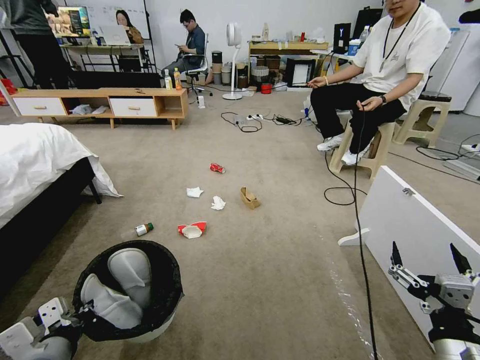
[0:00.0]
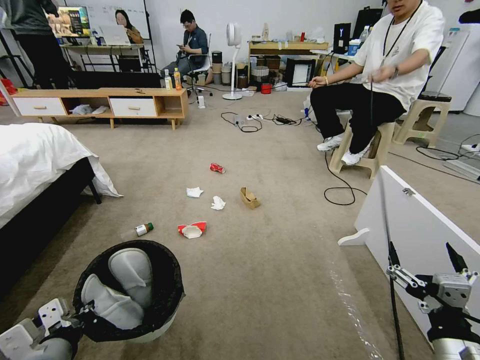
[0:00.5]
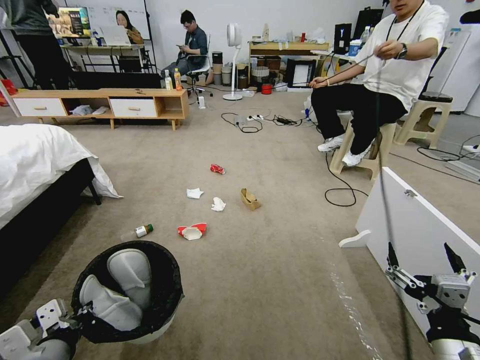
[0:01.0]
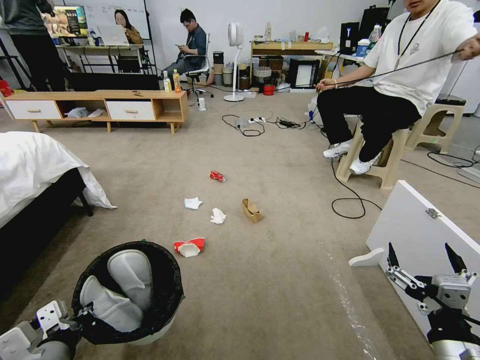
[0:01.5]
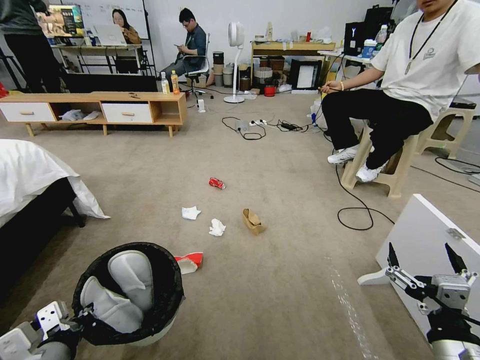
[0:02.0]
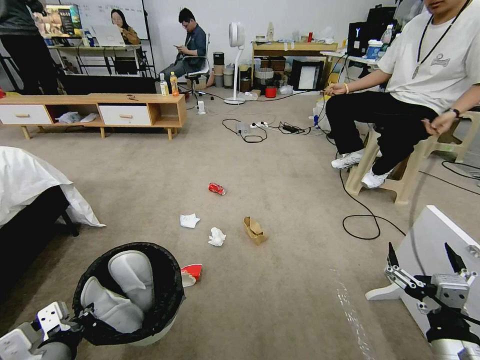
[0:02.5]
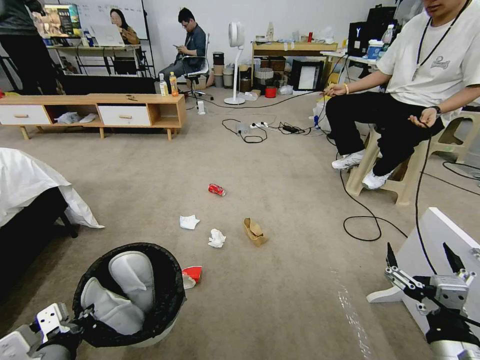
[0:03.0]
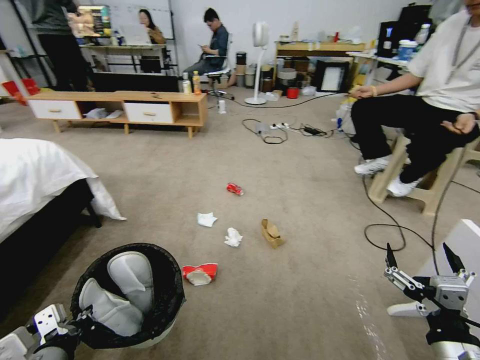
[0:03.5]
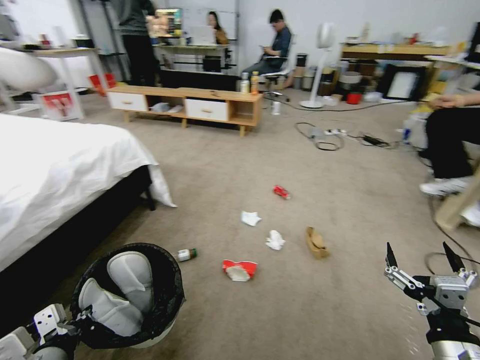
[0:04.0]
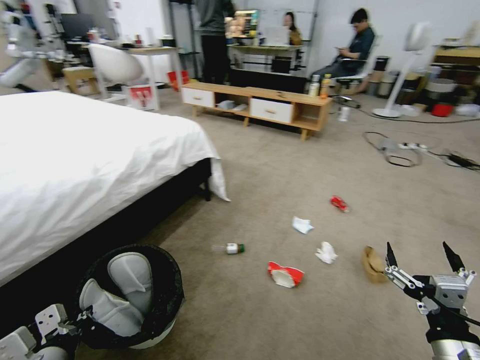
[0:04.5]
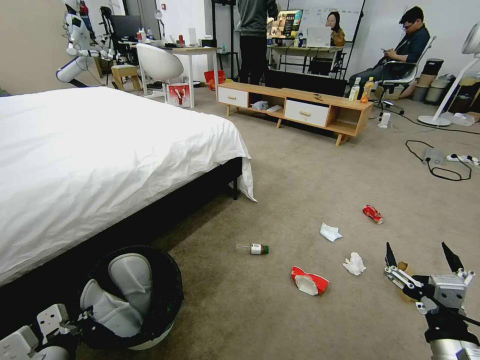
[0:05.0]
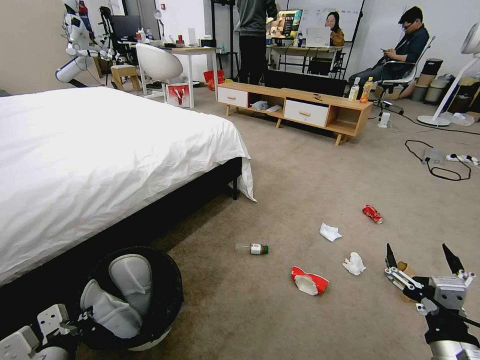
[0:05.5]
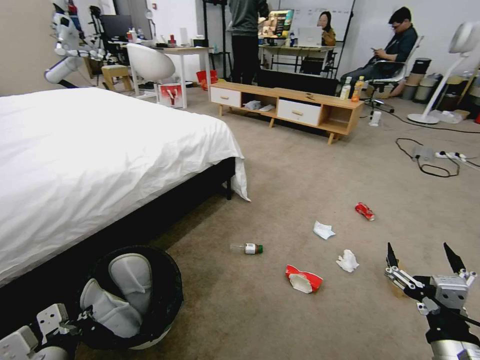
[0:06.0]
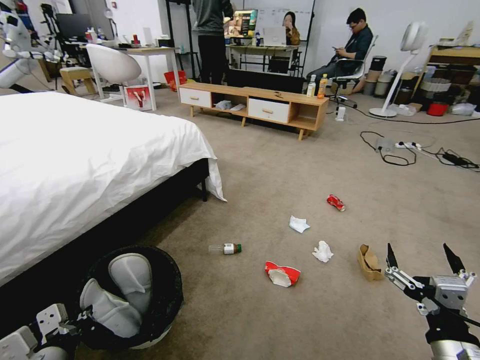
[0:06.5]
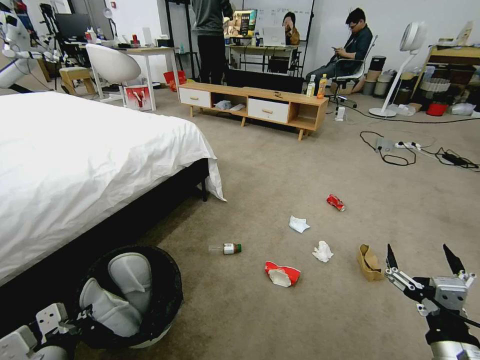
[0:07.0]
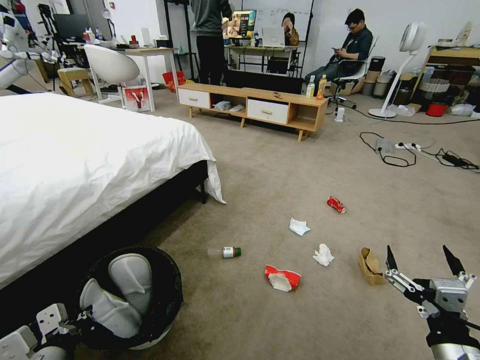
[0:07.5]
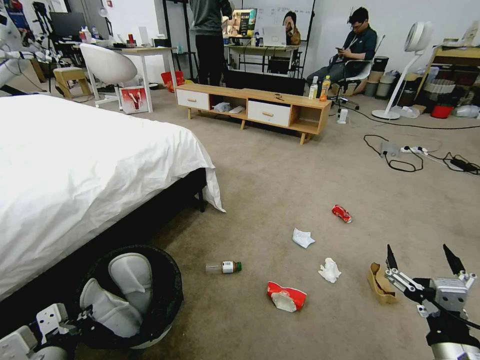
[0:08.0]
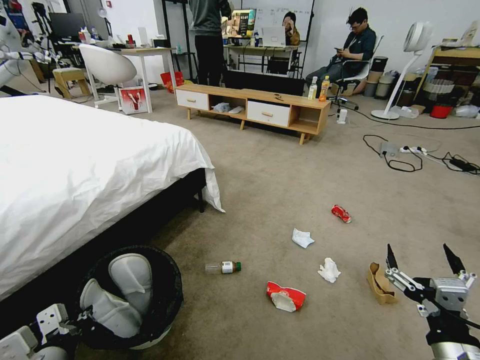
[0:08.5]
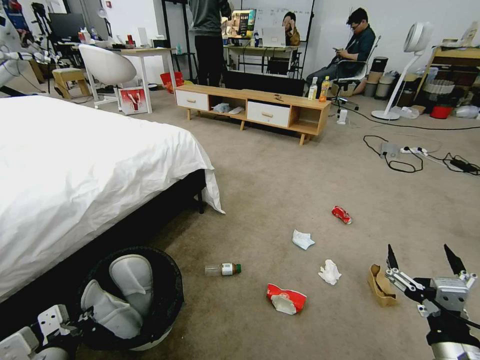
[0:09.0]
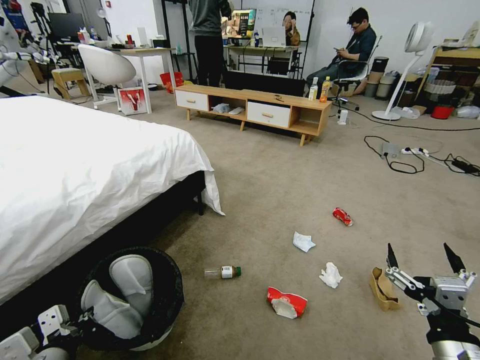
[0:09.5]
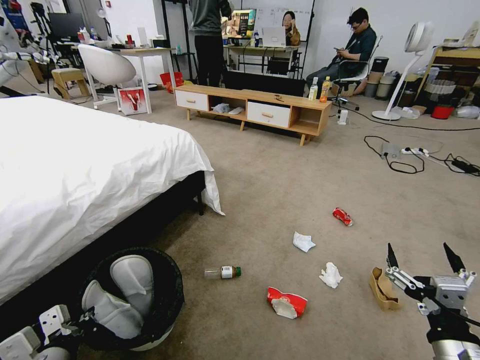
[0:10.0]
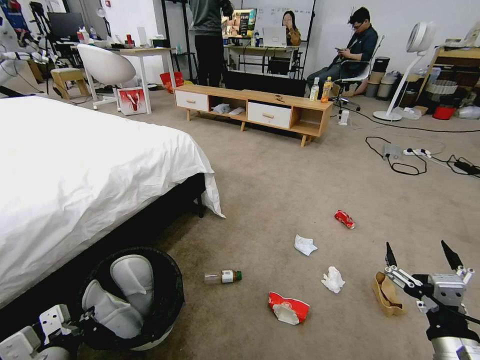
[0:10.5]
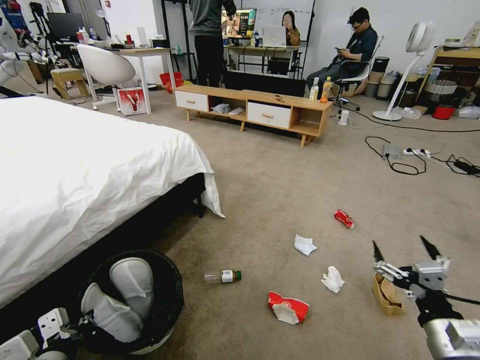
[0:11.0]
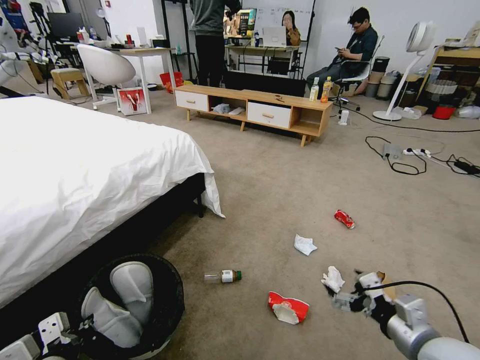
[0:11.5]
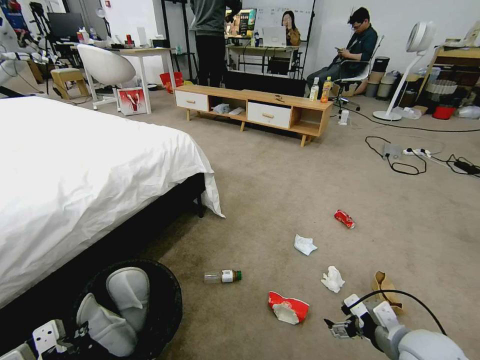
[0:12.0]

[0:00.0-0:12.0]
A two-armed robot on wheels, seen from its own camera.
Task of the whole recording: Pick up the trash bin and place the garbage on the floor into it.
0:08.0 to 0:10.0: Neither gripper changes place.
0:10.0 to 0:12.0: The right gripper moves forward, approximately 10 cm.

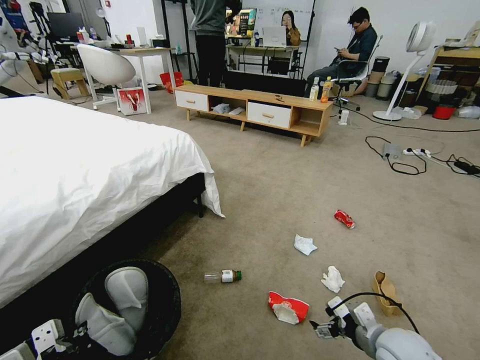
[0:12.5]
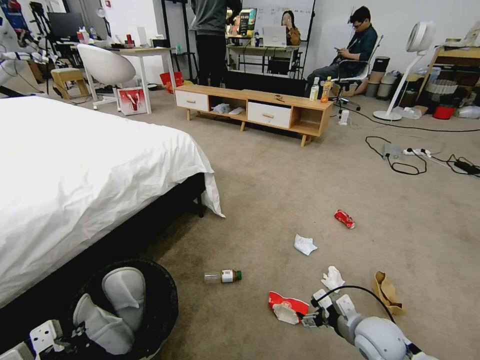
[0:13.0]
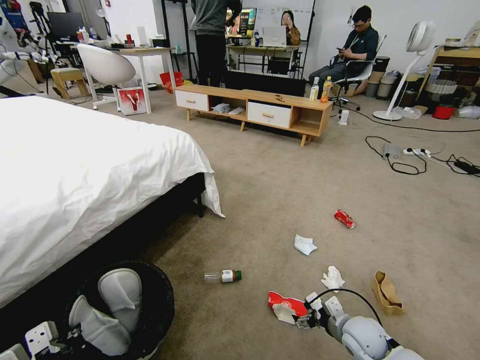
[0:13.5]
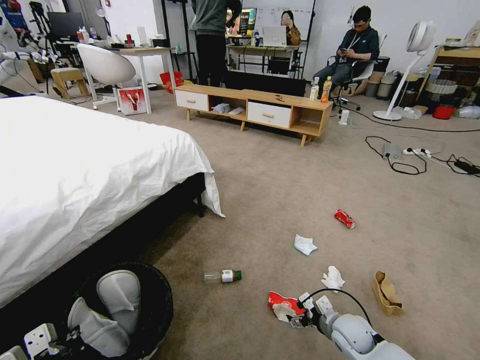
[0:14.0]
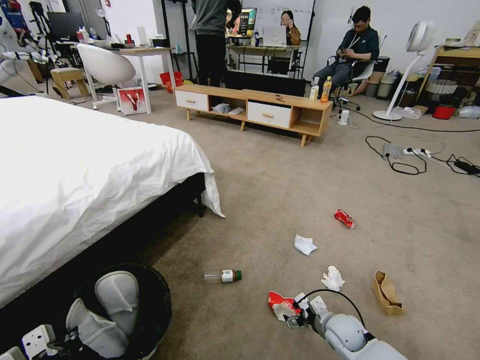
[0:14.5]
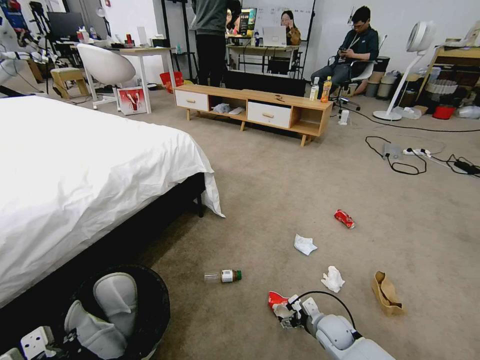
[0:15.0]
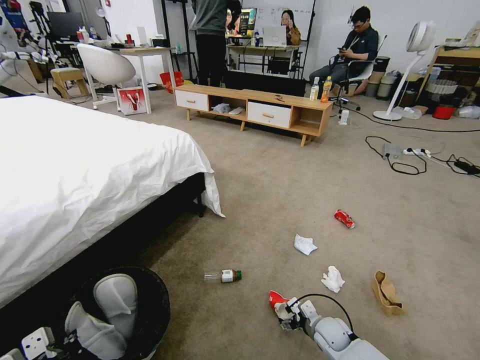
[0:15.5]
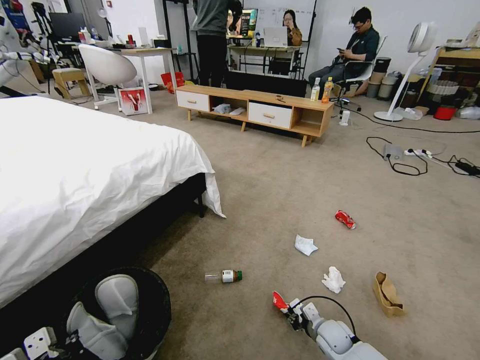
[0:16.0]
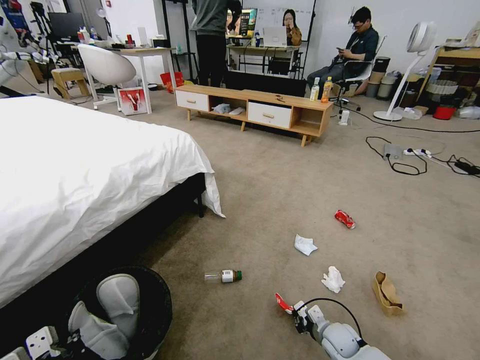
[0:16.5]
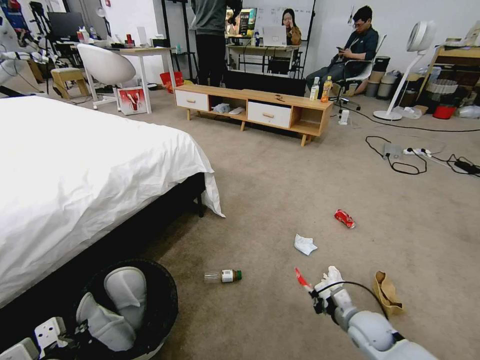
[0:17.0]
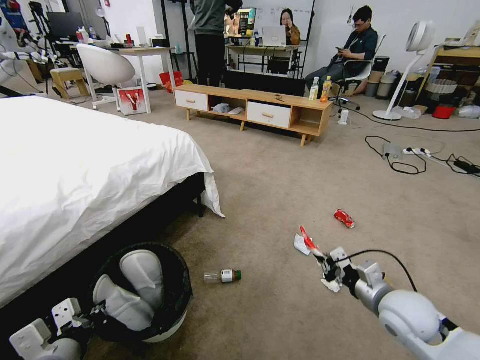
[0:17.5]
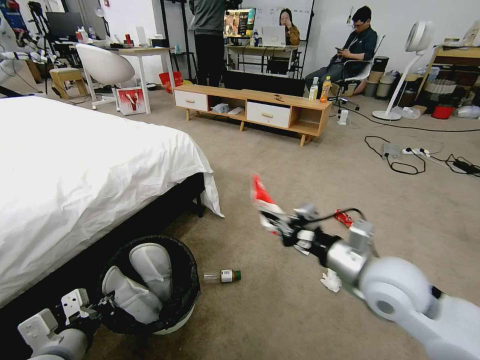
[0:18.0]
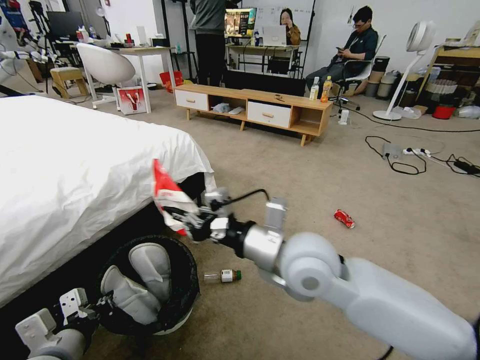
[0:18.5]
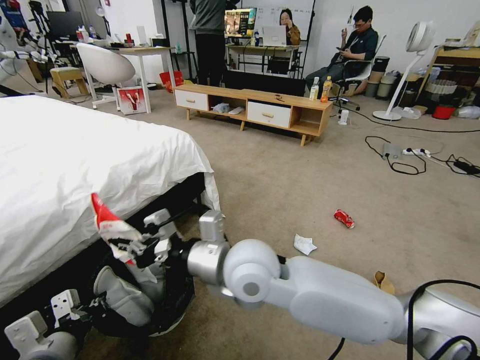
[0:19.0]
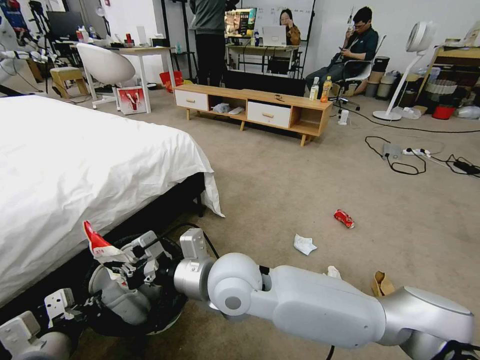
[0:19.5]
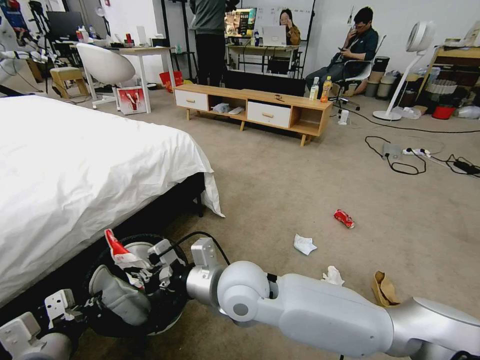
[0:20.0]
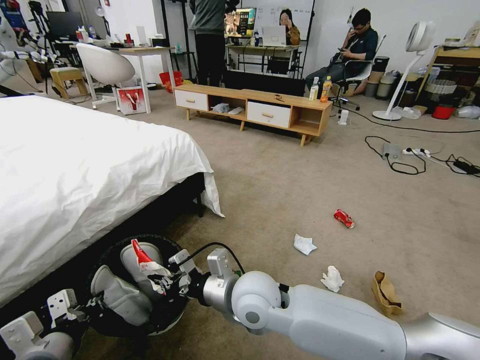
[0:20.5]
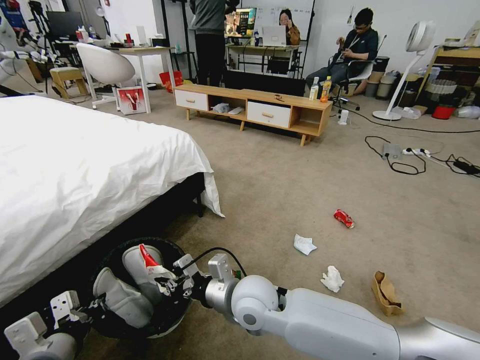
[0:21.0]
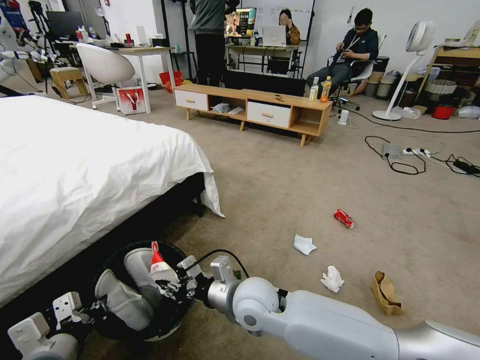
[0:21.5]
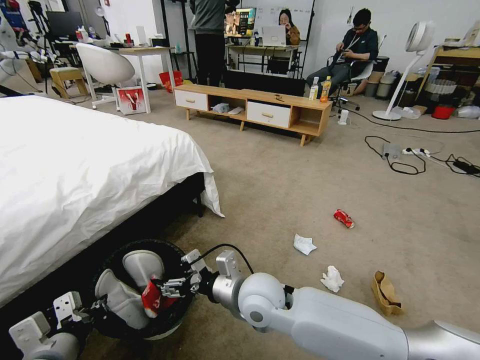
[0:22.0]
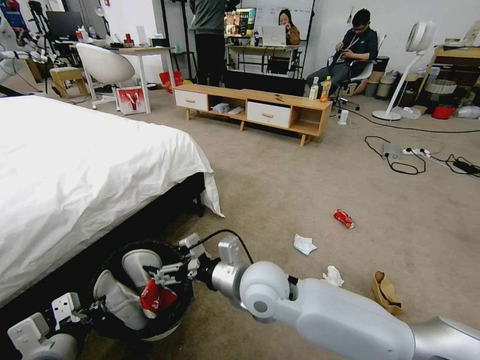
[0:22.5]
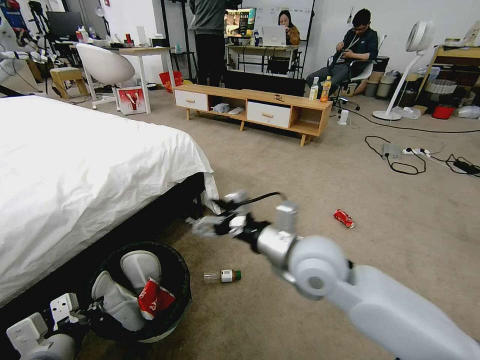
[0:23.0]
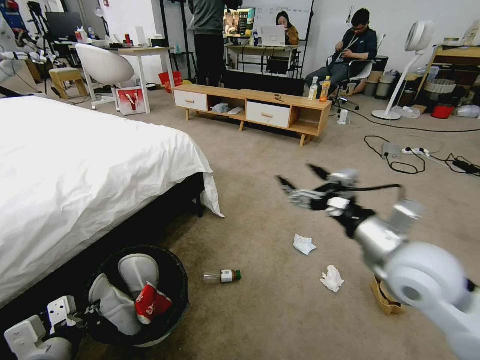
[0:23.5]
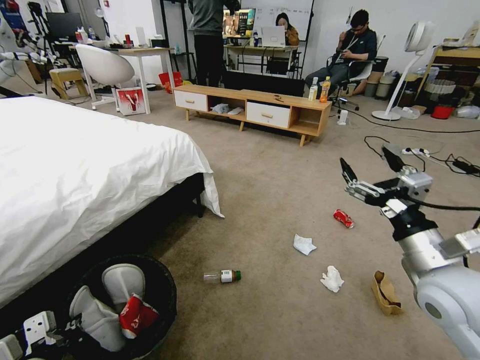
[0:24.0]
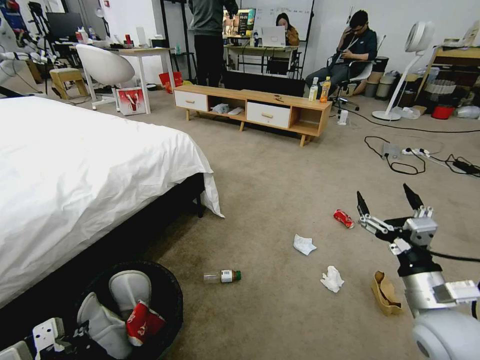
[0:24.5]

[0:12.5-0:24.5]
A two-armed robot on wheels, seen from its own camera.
Task of the whole recording: Pick up the trash bin and place the garbage on the floor into it.
0:12.5 to 0:14.5: The right gripper travels downward, forward and to the left by roughly 15 cm.
0:14.5 to 0:16.5: The right gripper closes.
0:16.5 to 0:18.5: The left gripper shifts by some 5 cm; the right gripper heads upward and to the left, covering approximately 40 cm.
0:18.5 to 0:20.5: The right gripper travels downward and to the left by roughly 15 cm.
0:20.5 to 0:22.5: The right gripper opens up.
0:22.5 to 0:24.5: The right gripper travels to the right by about 30 cm.

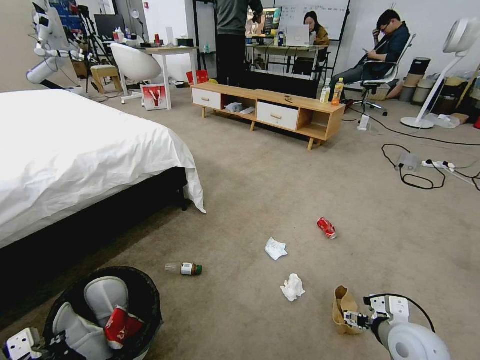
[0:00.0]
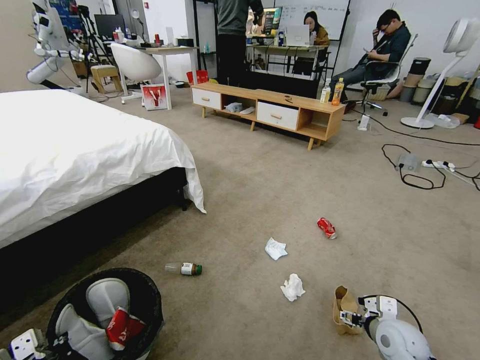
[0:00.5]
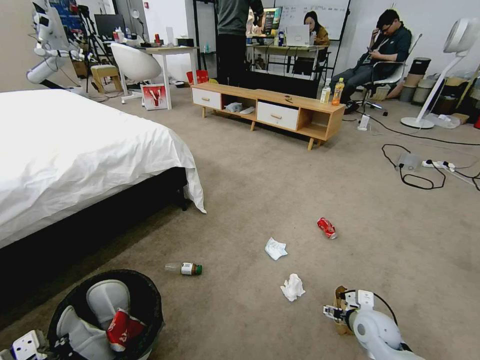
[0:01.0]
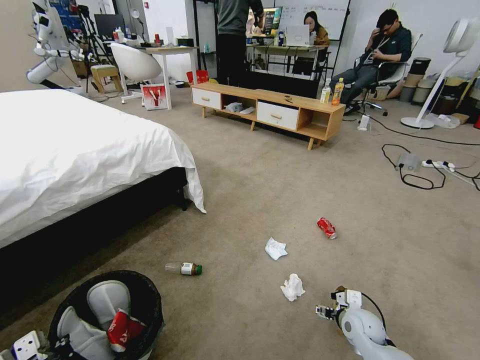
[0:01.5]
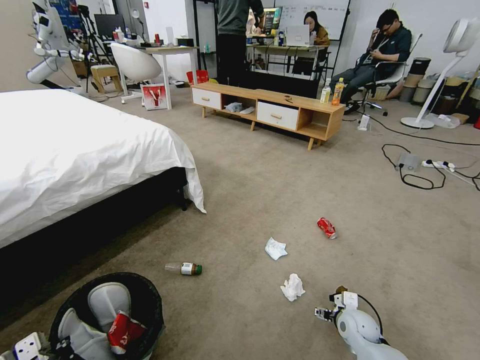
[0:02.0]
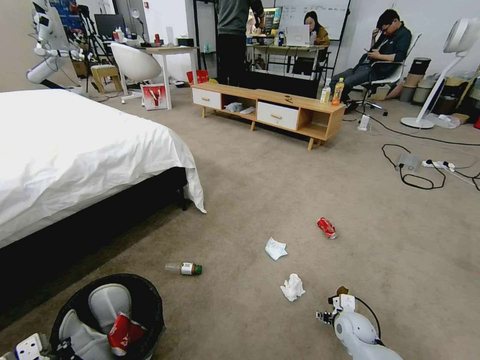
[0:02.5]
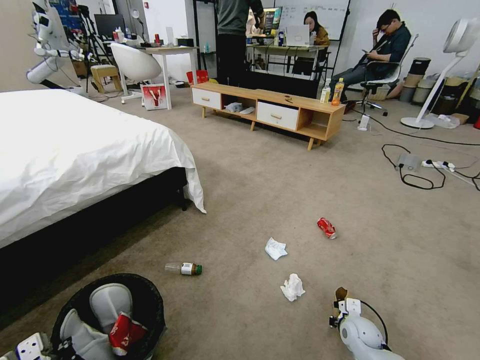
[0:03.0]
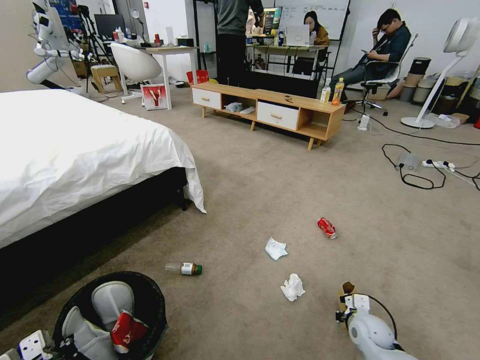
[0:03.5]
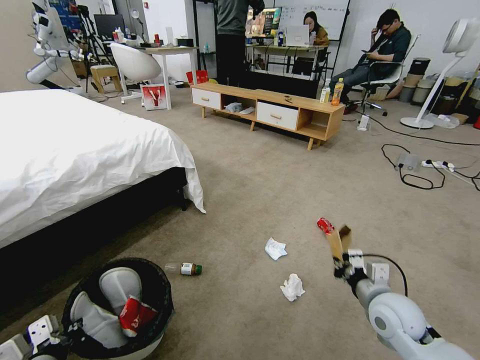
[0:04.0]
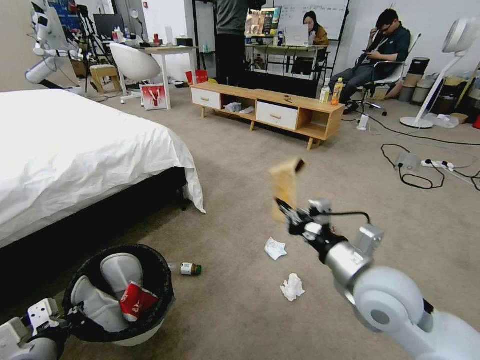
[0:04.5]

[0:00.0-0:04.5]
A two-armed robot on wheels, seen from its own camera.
Task of the whole recording: Pick up the trash bin and place the garbage on the floor into it.
0:00.0 to 0:02.0: The right gripper is displaced downward and forward by about 15 cm.
0:02.0 to 0:04.5: The right gripper goes approximately 30 cm upward, and closes up.
